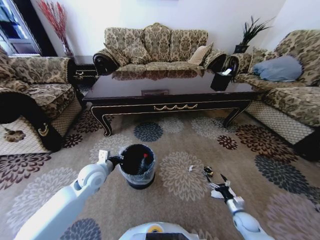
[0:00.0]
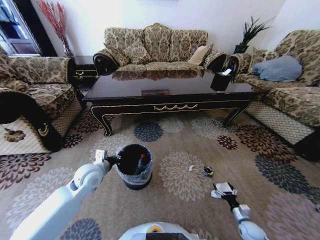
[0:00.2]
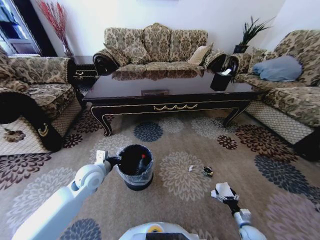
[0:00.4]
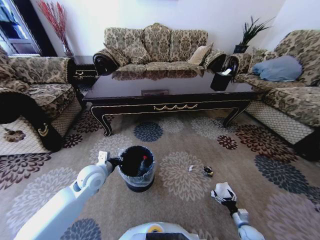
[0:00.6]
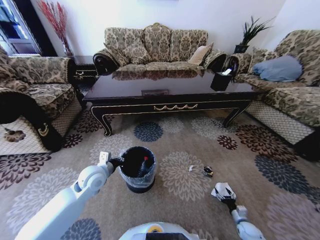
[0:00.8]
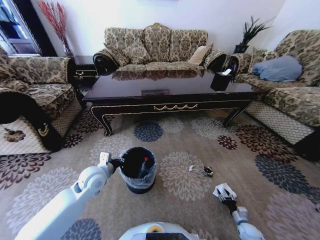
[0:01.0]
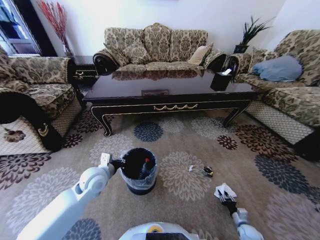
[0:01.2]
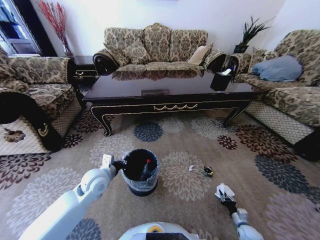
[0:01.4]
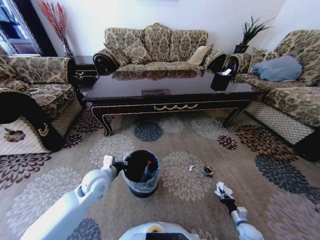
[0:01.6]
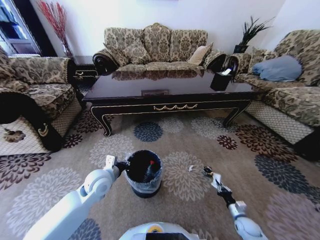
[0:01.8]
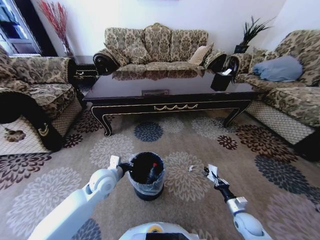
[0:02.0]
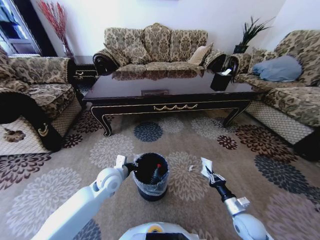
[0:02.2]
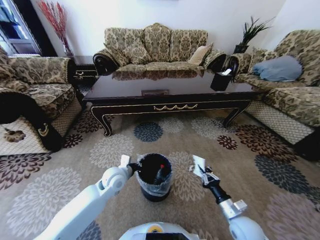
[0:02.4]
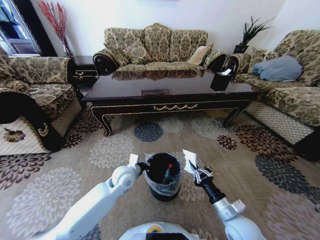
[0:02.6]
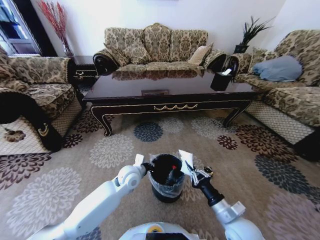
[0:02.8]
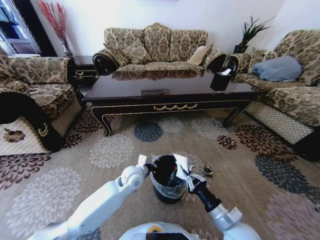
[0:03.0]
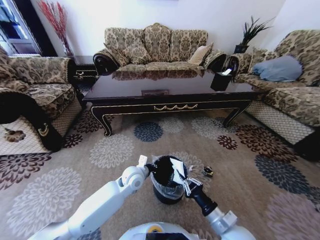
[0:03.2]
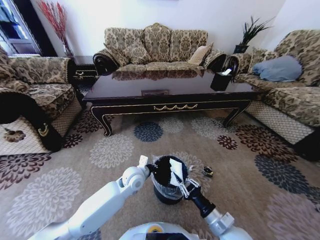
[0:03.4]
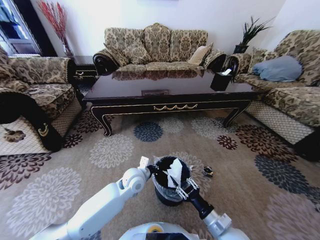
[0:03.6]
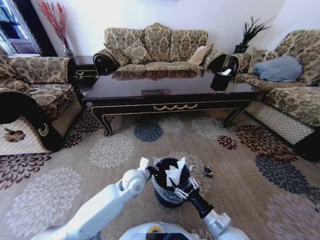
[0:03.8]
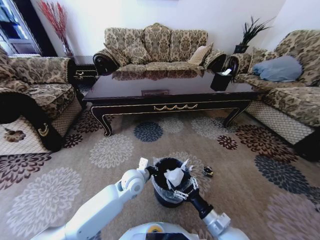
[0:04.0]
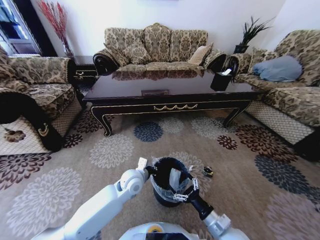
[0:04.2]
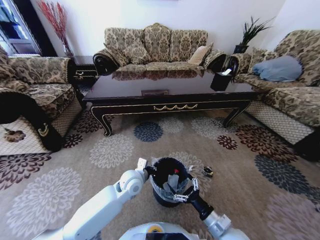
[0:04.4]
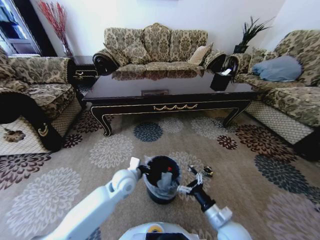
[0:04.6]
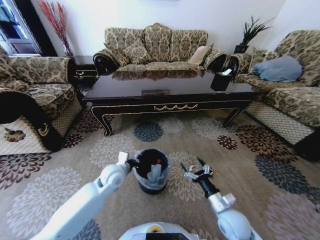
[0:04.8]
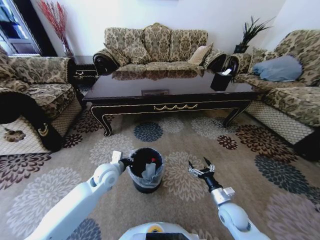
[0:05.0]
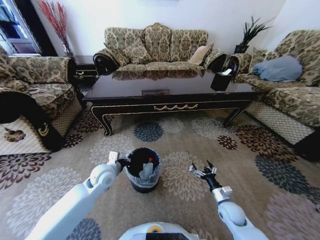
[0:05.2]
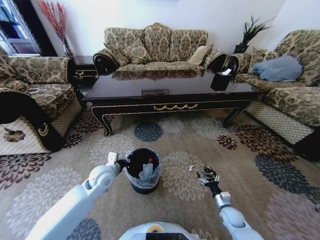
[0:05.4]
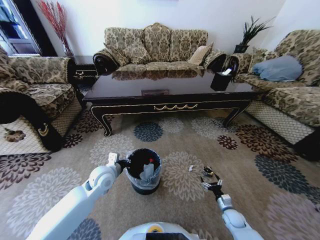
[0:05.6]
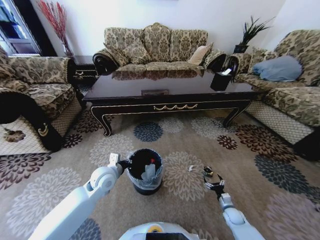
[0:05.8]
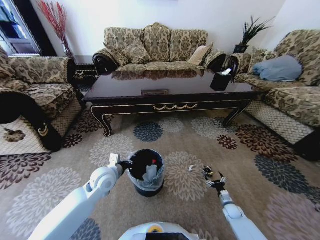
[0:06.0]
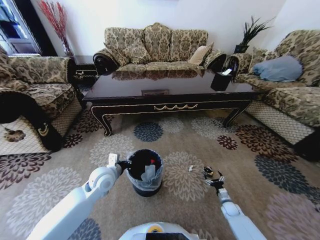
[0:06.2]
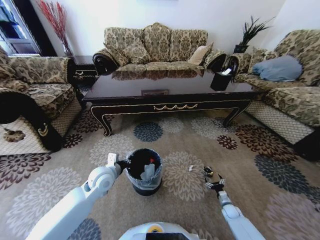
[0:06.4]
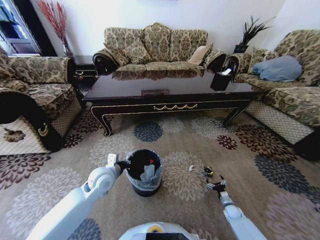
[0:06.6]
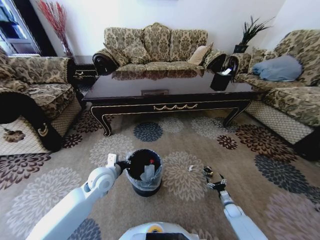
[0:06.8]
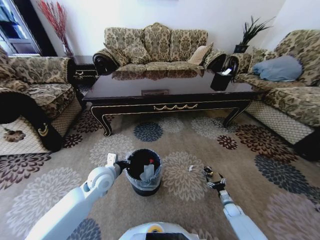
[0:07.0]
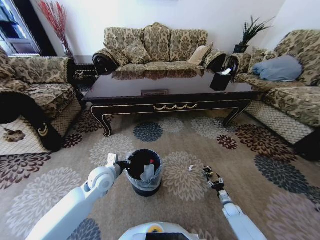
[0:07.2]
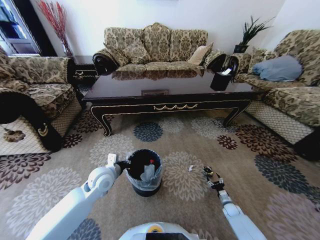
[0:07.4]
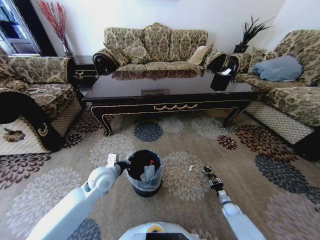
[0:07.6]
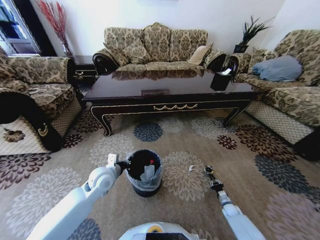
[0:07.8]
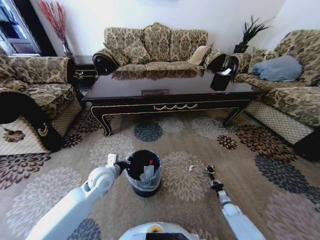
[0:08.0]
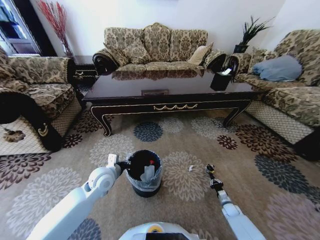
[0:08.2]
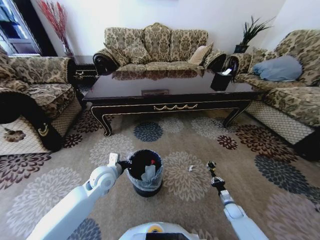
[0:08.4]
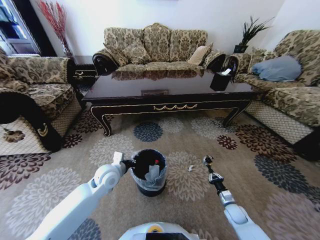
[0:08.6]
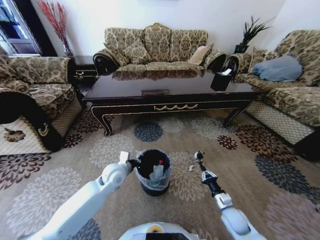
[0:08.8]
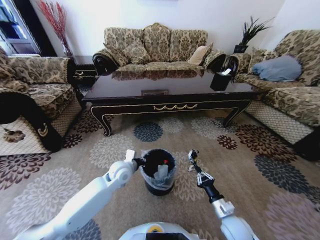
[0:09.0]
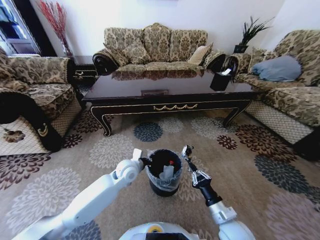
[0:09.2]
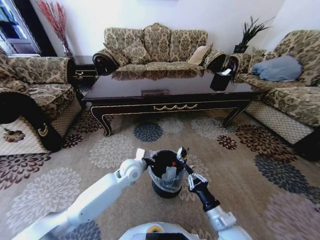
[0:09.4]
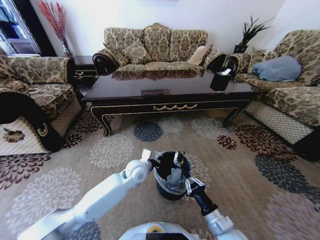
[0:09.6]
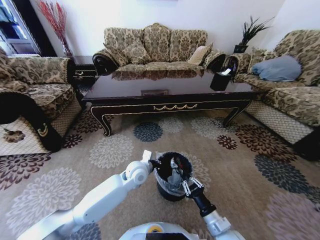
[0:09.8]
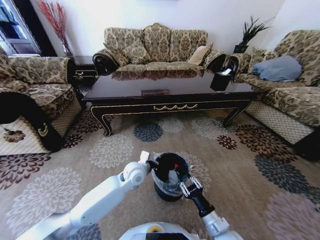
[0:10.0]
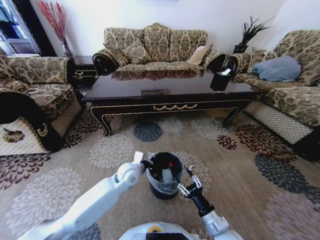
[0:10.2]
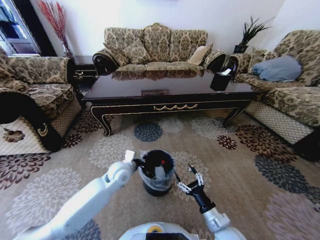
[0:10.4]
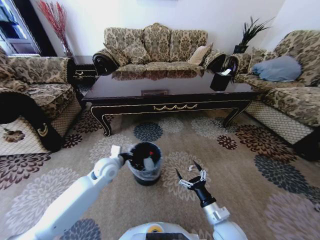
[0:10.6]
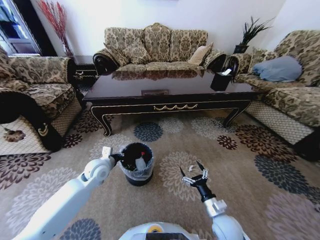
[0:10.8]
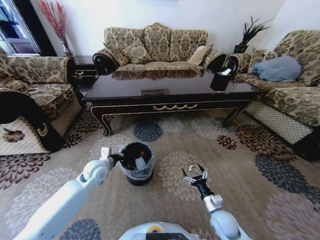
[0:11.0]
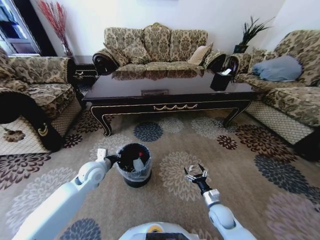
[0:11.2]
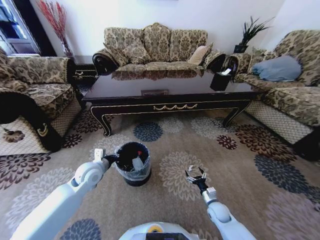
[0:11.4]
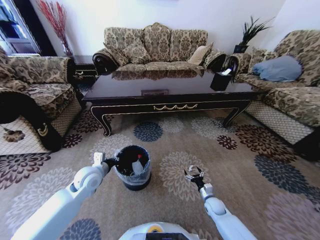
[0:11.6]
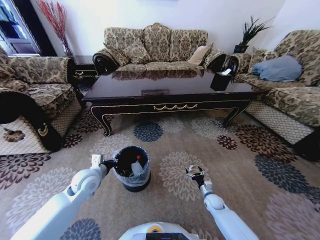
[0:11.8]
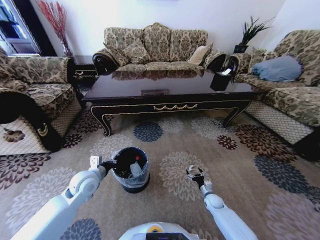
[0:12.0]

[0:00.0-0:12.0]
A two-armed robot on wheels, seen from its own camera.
Task of the whole recording: Move to the front of the table and pick up the trash from the floor, then place it into the trash bin.
0:00.0 to 0:01.6: The right gripper is displaced downward by some 5 cm, and closes its fingers.
0:01.6 to 0:03.0: The left gripper moves to the right, about 15 cm, while the right gripper heads upward and to the left, covering approximately 35 cm.
0:03.0 to 0:04.4: The right gripper opens its fingers.
0:04.4 to 0:06.0: The right gripper travels downward, to the right and forward by some 30 cm. Meanwhile the left gripper goes about 10 cm to the left.
0:06.0 to 0:07.6: The right gripper closes its fingers.
0:07.6 to 0:09.0: The right gripper moves upward, to the left and backward, some 30 cm, while the left gripper heads to the right, covering some 5 cm.
0:09.0 to 0:10.4: The right gripper is displaced to the left by approximately 5 cm, and opens its fingers, while the left gripper travels to the right and back again, approximately 5 cm each way.
0:10.4 to 0:12.0: The right gripper shifts approximately 30 cm downward, forward and to the right. The left gripper goes approximately 10 cm to the left and backward.

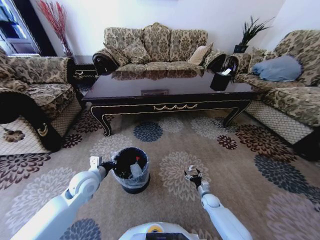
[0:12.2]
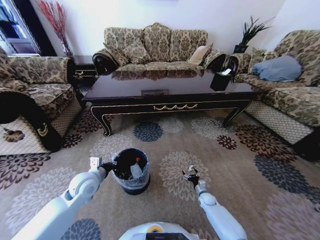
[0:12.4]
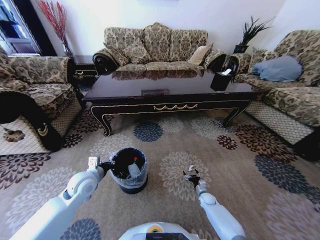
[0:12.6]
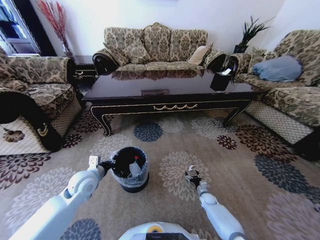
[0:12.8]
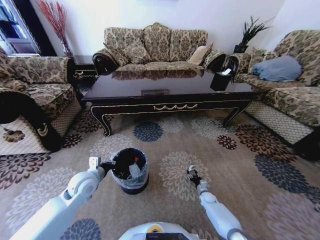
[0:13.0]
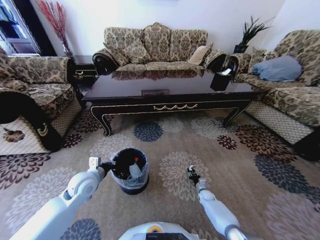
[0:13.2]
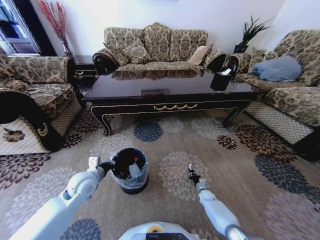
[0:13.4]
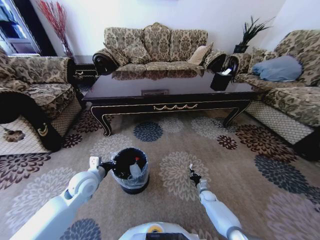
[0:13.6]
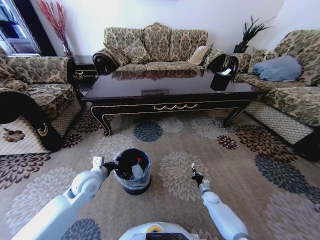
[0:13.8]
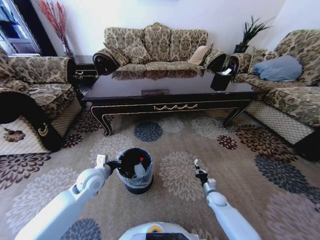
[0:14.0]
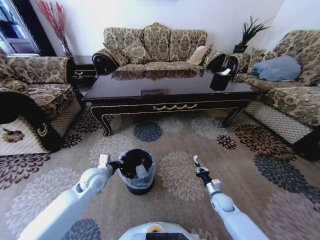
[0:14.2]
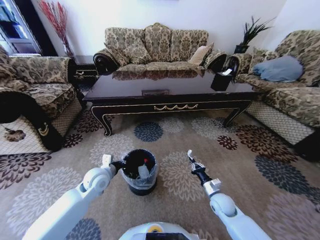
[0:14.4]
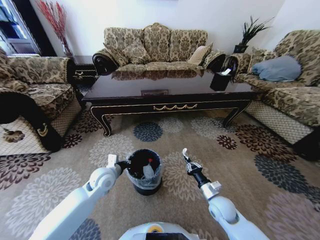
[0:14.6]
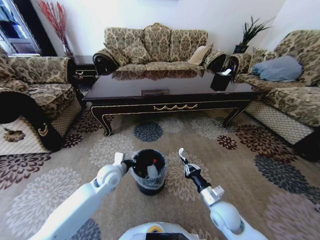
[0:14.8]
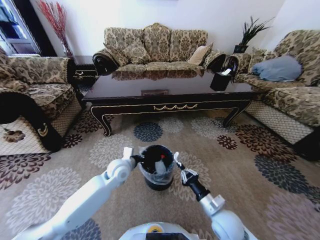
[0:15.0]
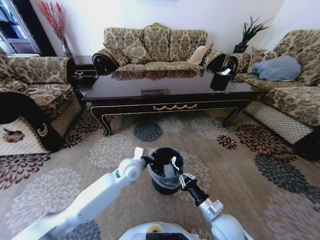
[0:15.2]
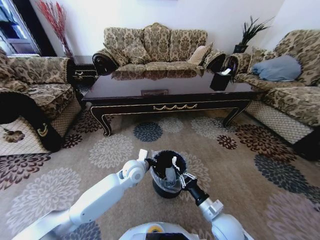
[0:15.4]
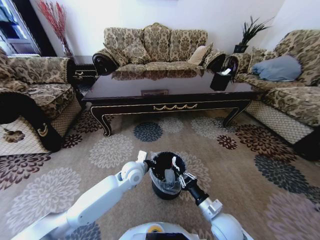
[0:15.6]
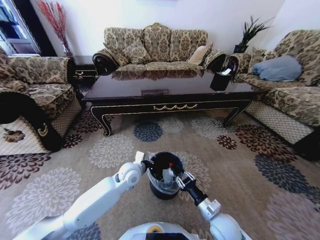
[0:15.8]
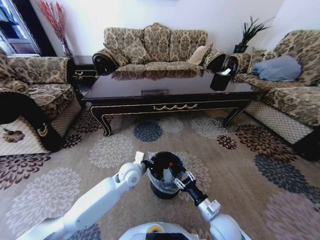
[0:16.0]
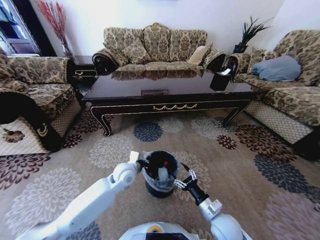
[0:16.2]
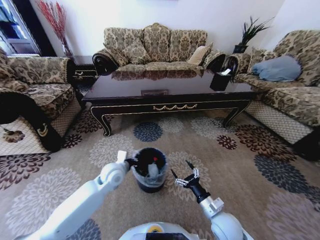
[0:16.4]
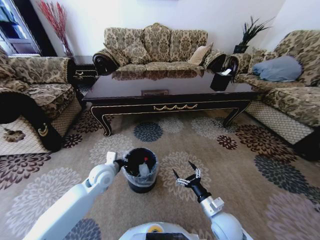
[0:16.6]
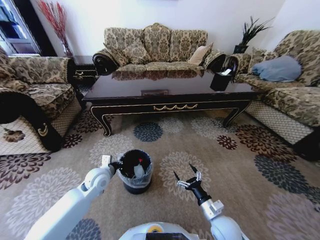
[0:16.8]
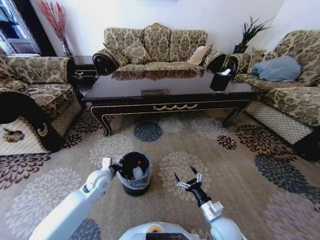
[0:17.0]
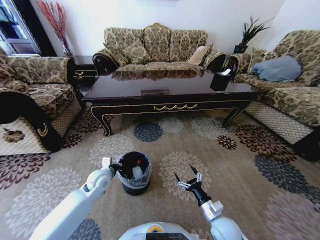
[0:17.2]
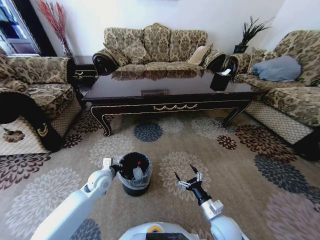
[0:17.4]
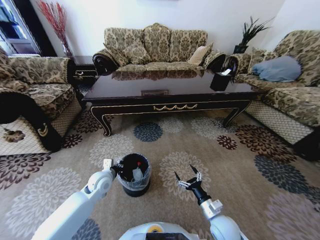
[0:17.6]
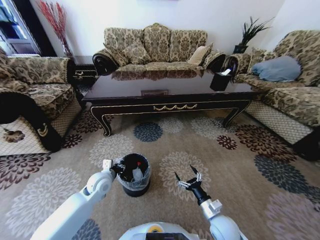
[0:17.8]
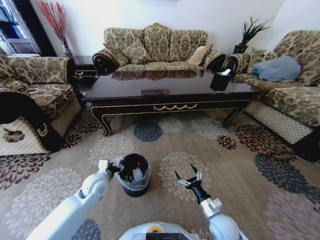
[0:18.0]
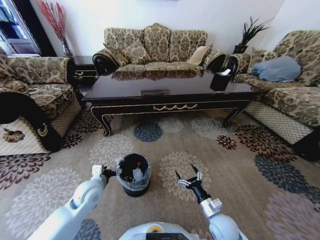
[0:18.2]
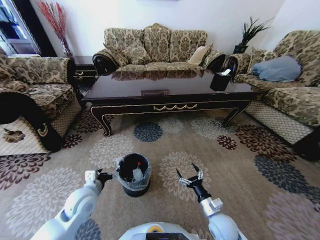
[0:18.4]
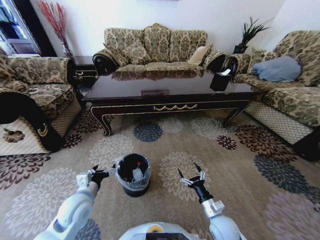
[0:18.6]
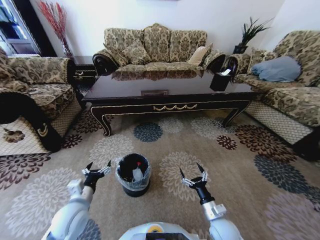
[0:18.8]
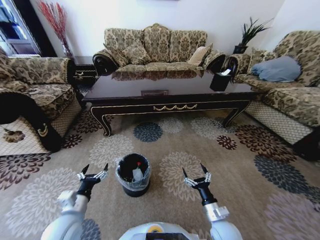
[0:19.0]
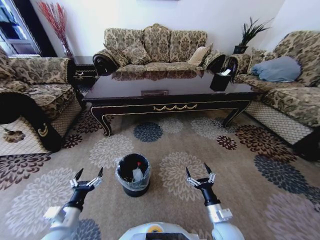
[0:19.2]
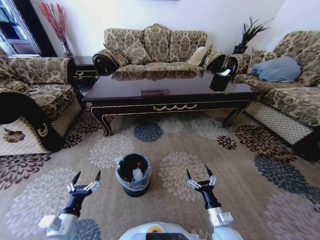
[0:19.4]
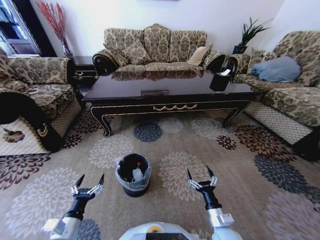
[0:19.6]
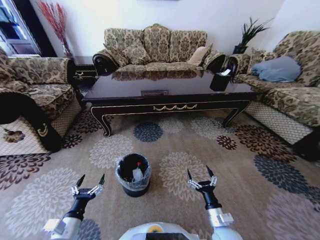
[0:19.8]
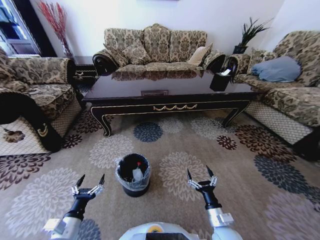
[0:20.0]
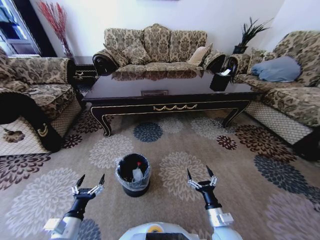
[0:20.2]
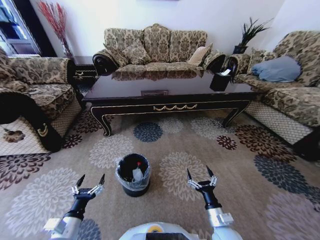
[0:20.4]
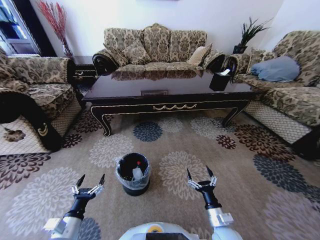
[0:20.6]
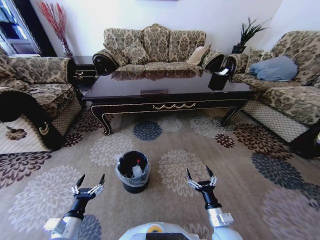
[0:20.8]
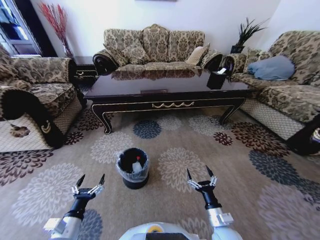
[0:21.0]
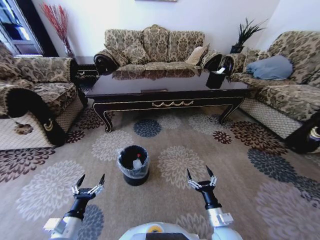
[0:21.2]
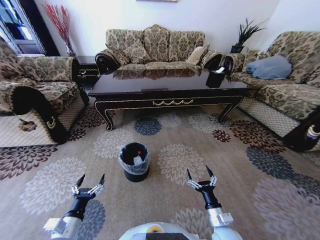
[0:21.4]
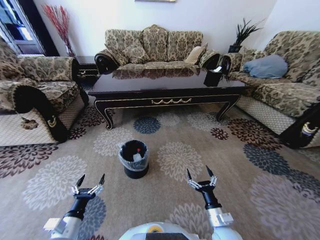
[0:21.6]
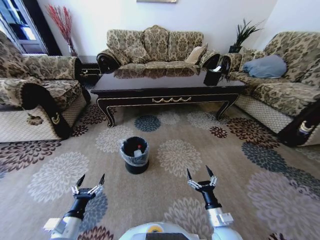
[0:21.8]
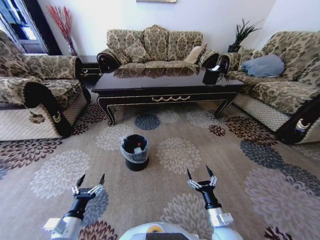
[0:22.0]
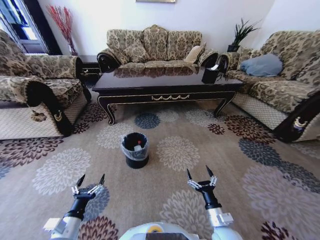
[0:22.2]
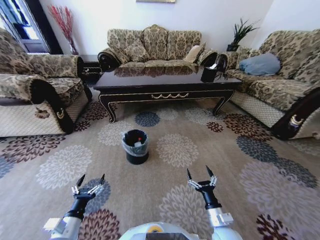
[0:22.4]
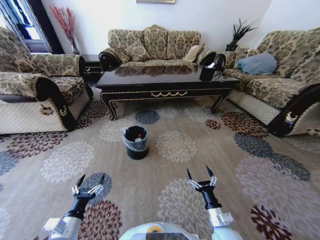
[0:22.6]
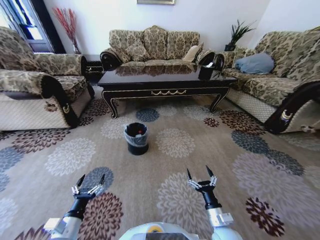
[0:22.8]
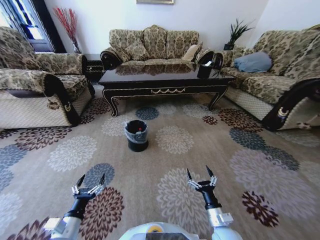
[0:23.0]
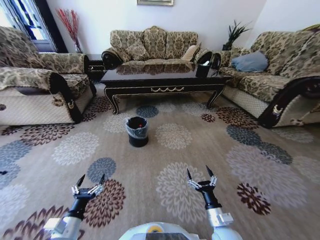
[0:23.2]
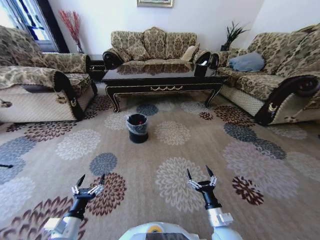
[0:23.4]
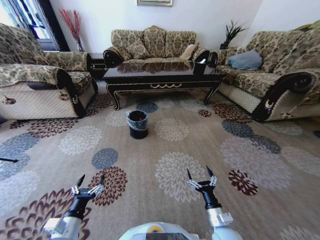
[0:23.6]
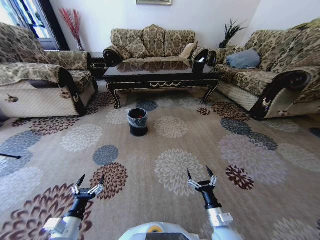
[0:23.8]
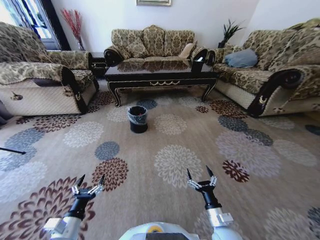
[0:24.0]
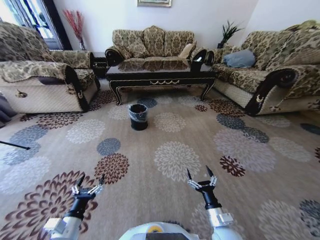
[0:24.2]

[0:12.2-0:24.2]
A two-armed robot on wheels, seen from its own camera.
Task of the whole recording: Move to the front of the table and pick up the trash from the floor, then place it into the trash bin.
0:12.2 to 0:13.8: The right gripper closes.
0:13.8 to 0:15.2: The left gripper heads to the right, covering approximately 15 cm. The right gripper is displaced upward, backward and to the left by about 30 cm.
0:15.2 to 0:16.6: The left gripper shifts approximately 10 cm to the left. Meanwhile the right gripper opens its fingers.
0:16.6 to 0:18.2: The left gripper moves backward, approximately 5 cm, and opens up.
0:18.2 to 0:19.8: The left gripper travels backward by roughly 15 cm.
